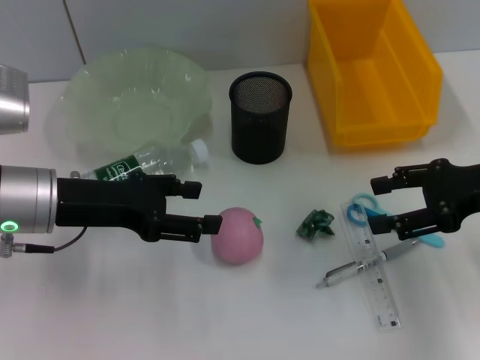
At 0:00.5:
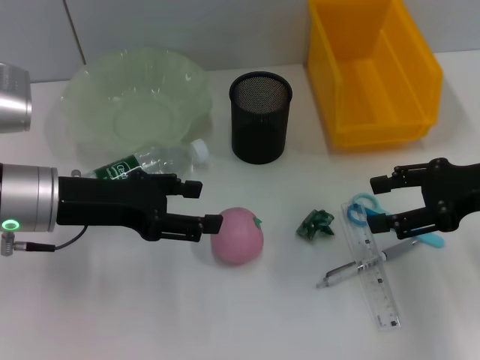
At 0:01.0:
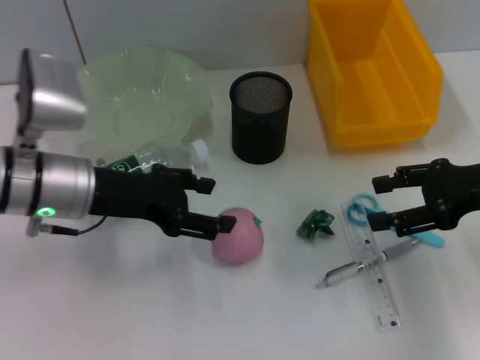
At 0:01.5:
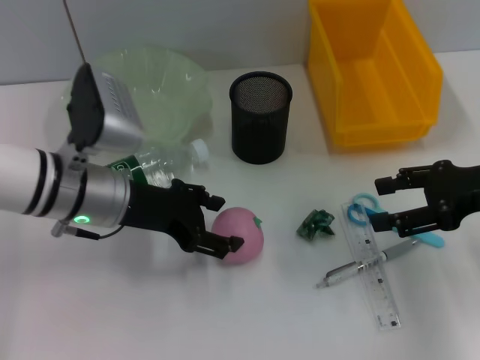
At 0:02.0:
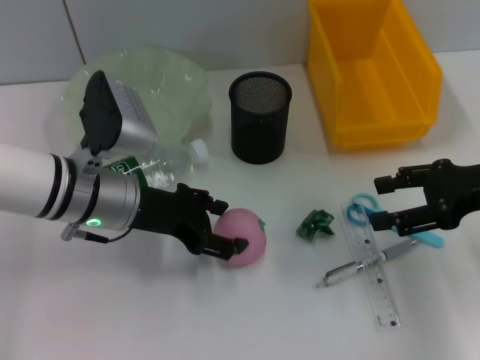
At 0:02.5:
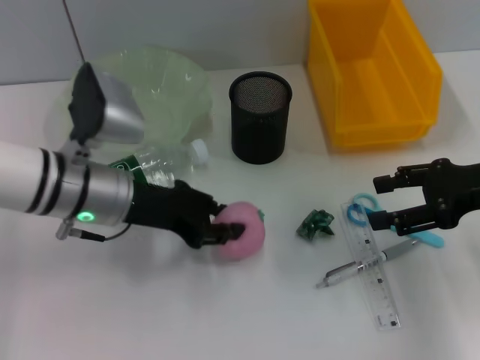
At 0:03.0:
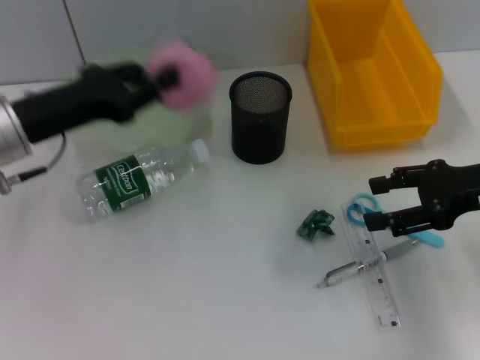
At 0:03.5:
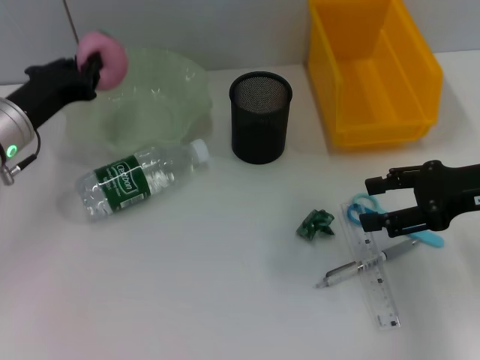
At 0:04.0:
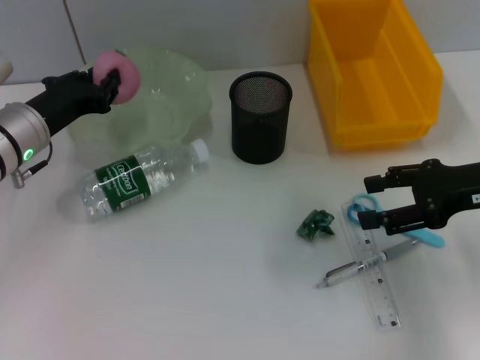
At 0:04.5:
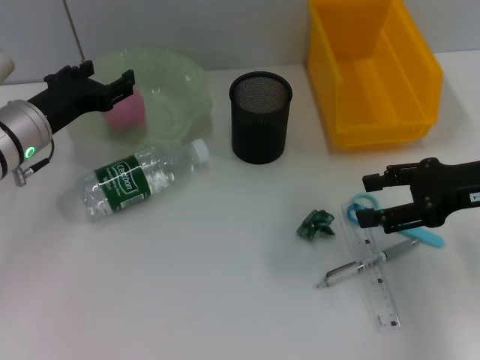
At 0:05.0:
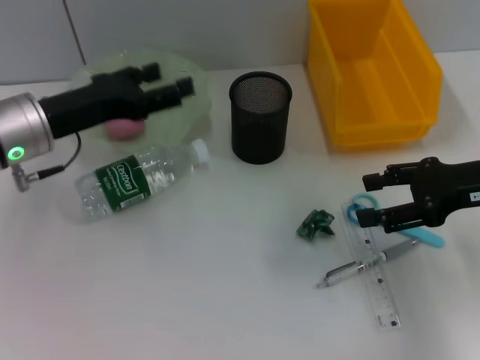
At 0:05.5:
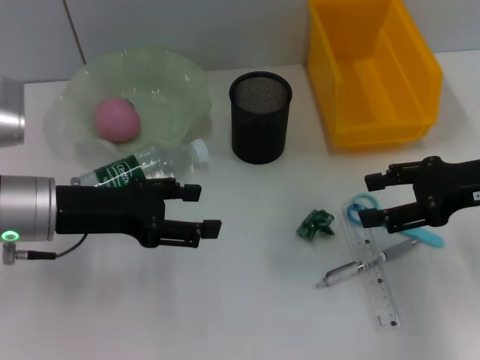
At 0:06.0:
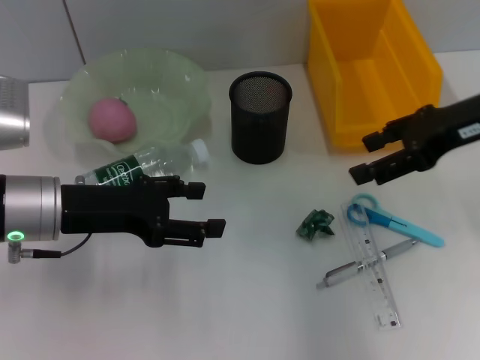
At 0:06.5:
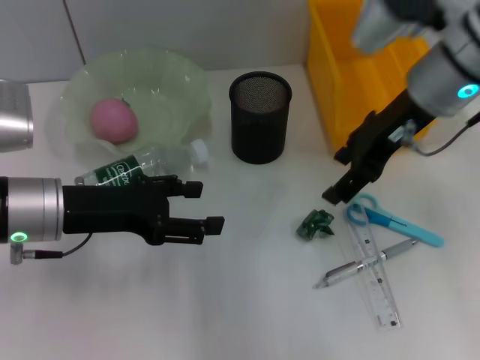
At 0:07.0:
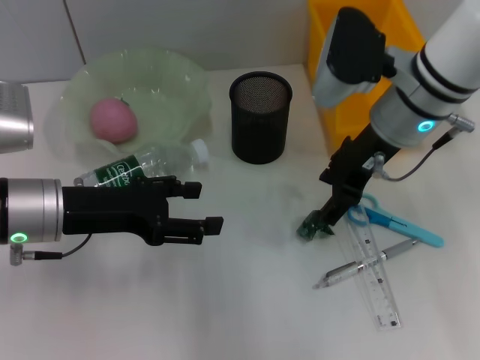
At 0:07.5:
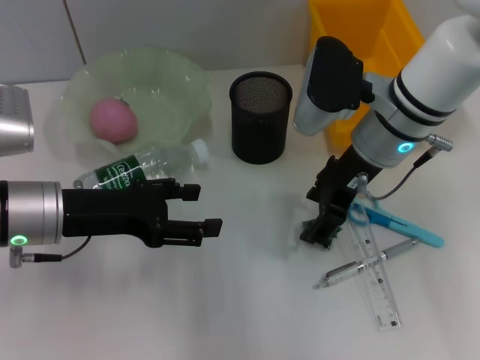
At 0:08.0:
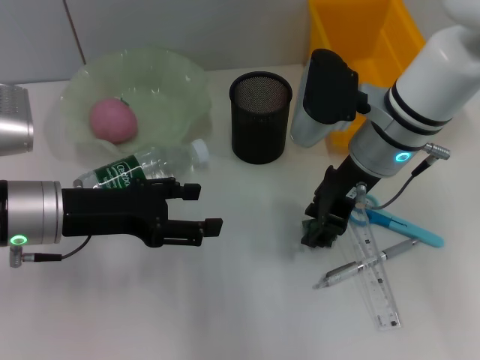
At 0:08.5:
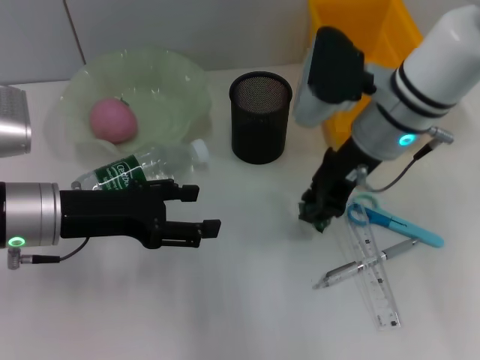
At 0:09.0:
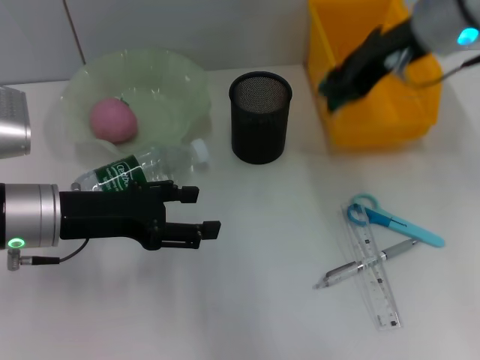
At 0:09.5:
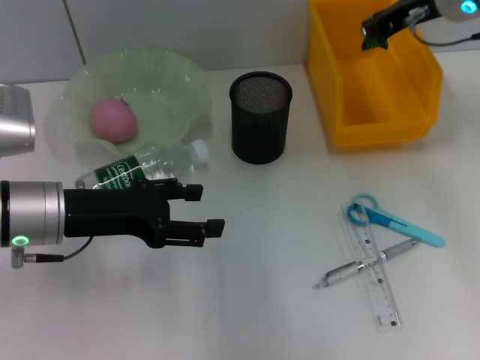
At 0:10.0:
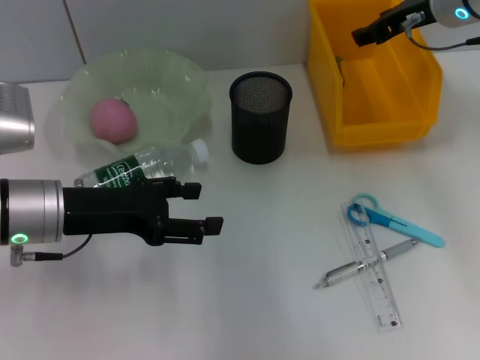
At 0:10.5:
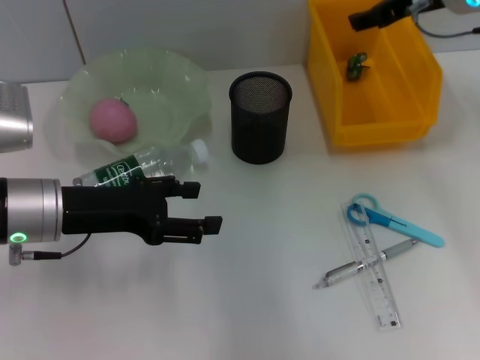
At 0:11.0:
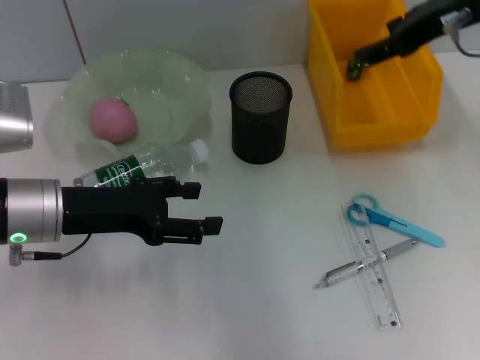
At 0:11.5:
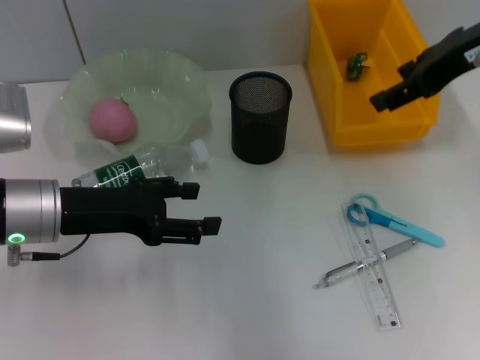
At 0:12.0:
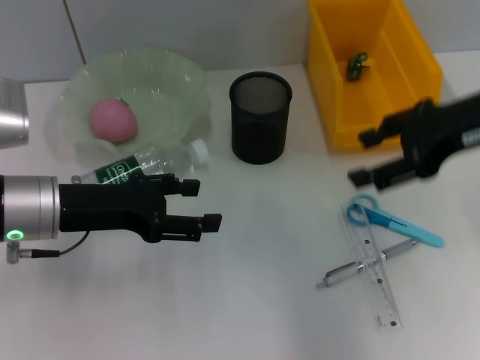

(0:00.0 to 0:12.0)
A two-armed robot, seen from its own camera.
Step, 0:00.0 - 0:02.0: Grab the peach with the left hand.
Step, 0:02.5 - 0:04.5: Place the peach into the fruit bowl with the left hand.
Step, 0:05.0 - 0:08.0: Grab the plastic with the right hand.
Step, 0:08.5 - 0:09.5: Place the plastic into the trash can with the right hand.
0:00.0 - 0:02.0: The left gripper shifts some 5 cm to the right.
0:02.0 - 0:04.0: The left gripper moves to the left, some 10 cm, and closes up.
0:04.0 - 0:06.0: The right gripper travels upward by approximately 10 cm, while the left gripper heads backward, covering some 5 cm, and opens up.
0:06.0 - 0:08.0: The right gripper travels to the left and downward by approximately 15 cm.
0:08.0 - 0:10.0: The right gripper shifts about 15 cm to the right, forward and upward, and closes.
0:10.0 - 0:12.0: The right gripper heads backward, covering approximately 15 cm, and opens up.

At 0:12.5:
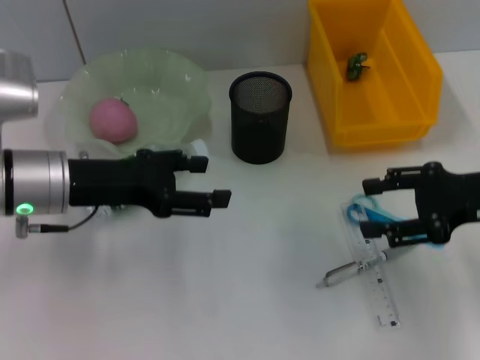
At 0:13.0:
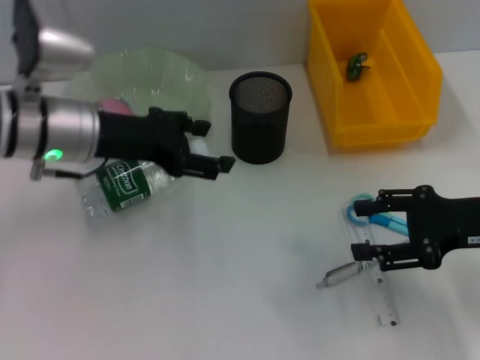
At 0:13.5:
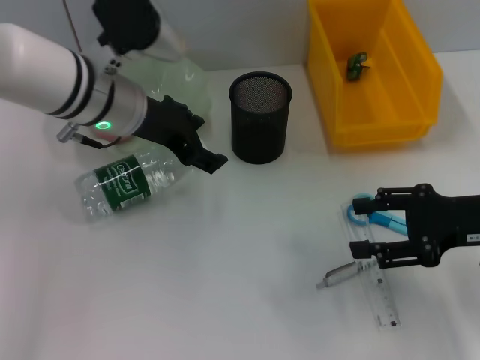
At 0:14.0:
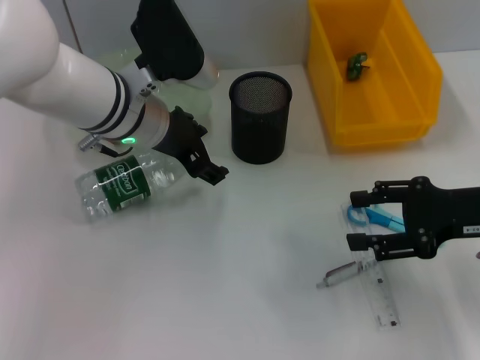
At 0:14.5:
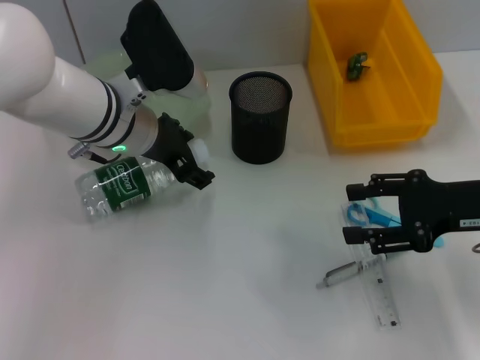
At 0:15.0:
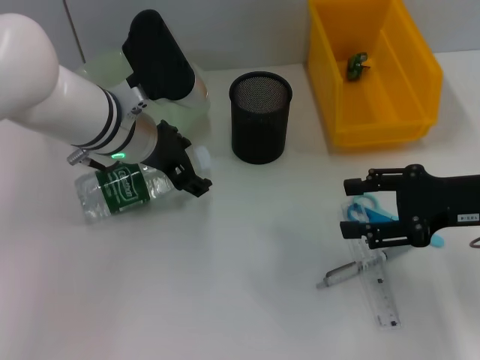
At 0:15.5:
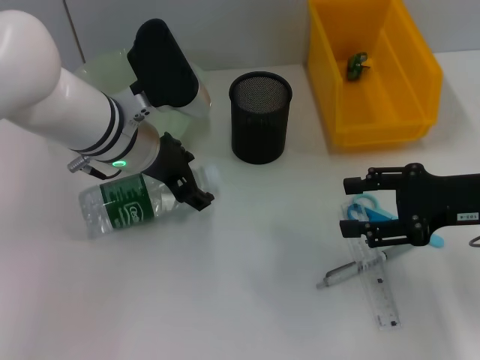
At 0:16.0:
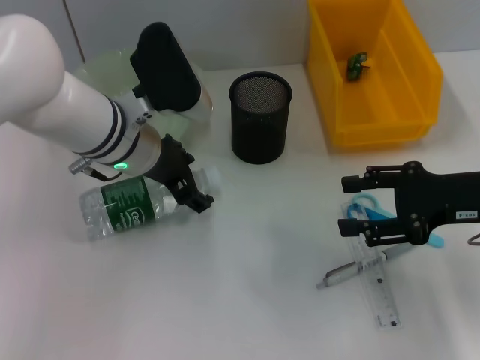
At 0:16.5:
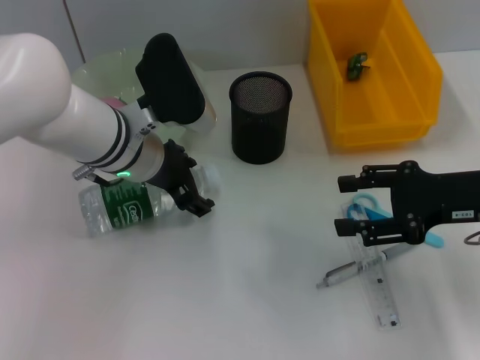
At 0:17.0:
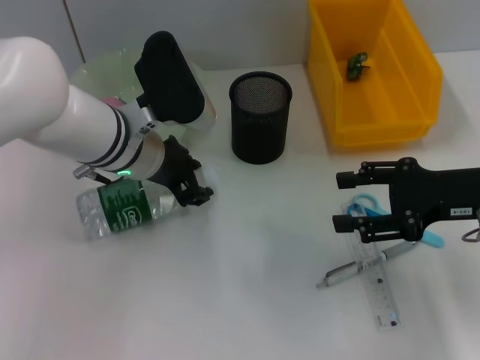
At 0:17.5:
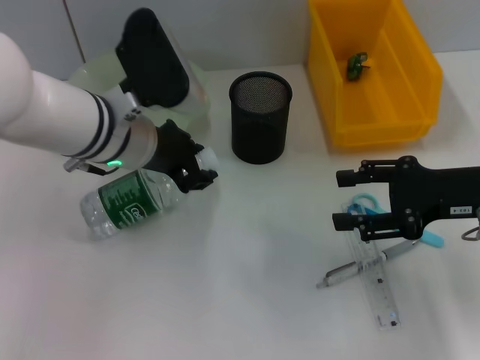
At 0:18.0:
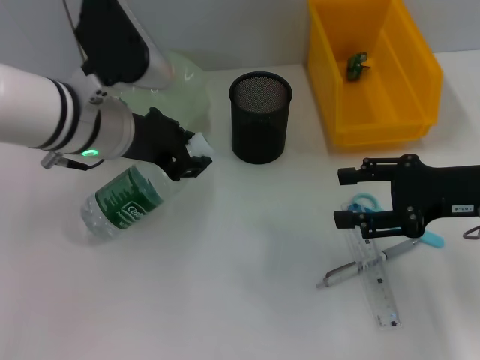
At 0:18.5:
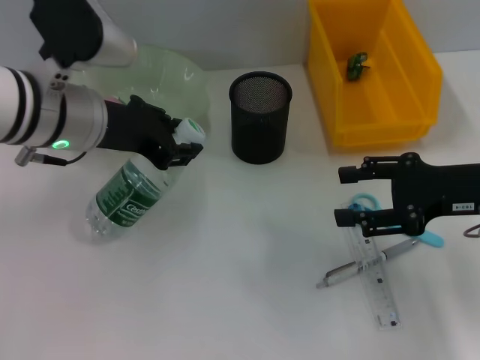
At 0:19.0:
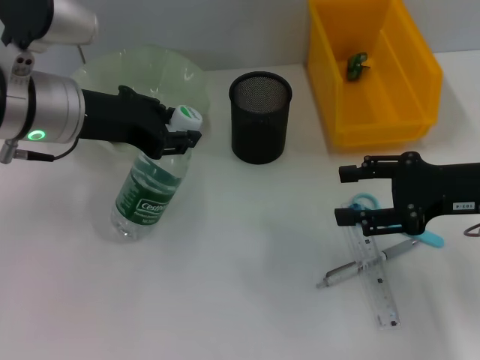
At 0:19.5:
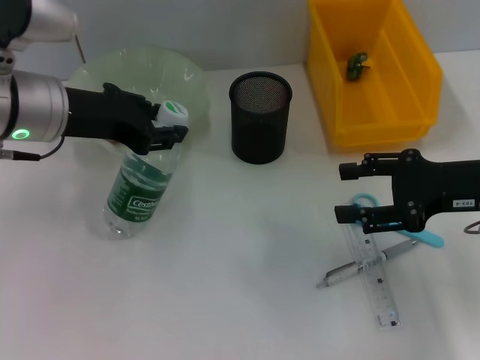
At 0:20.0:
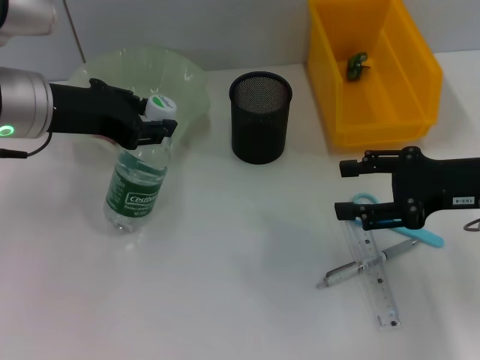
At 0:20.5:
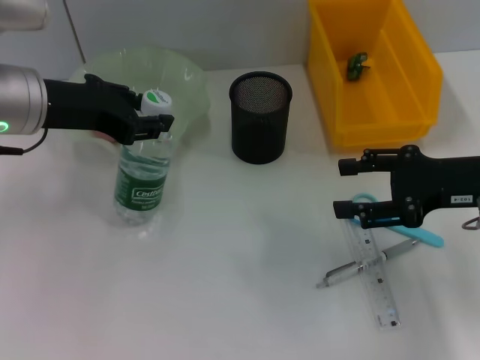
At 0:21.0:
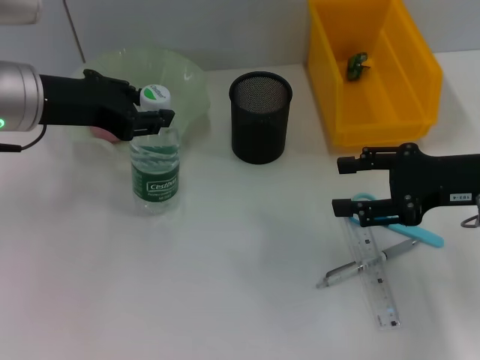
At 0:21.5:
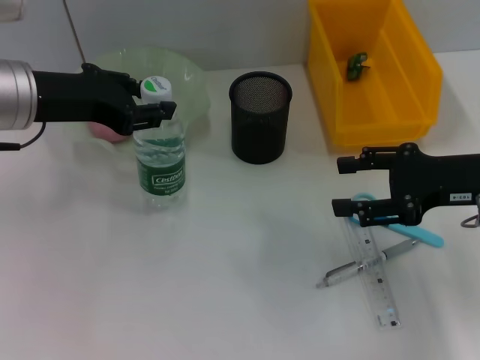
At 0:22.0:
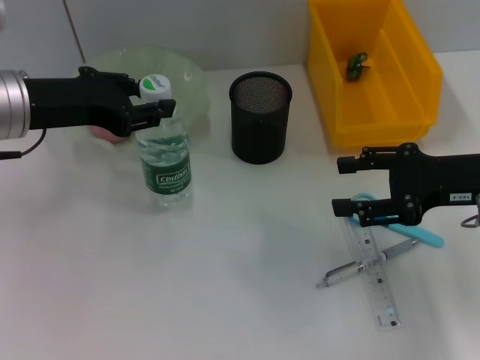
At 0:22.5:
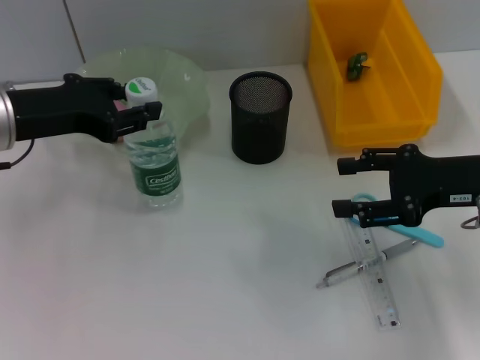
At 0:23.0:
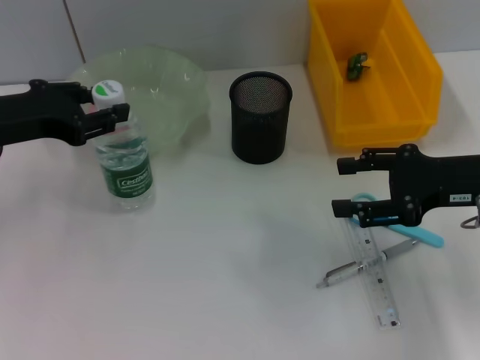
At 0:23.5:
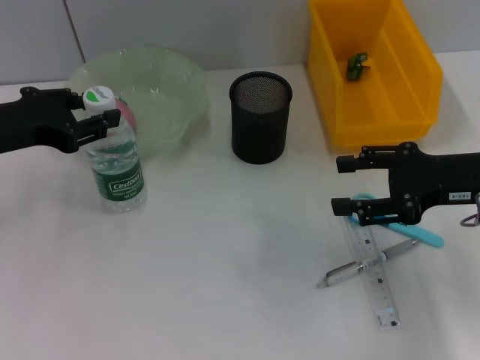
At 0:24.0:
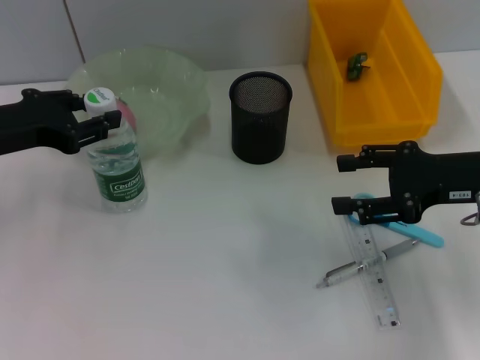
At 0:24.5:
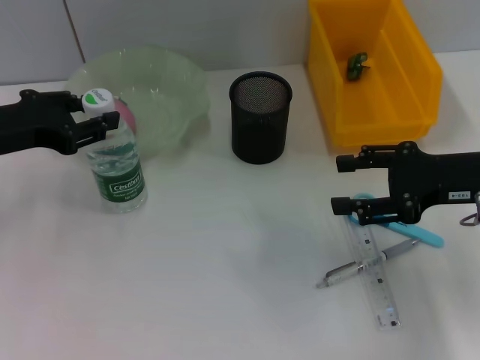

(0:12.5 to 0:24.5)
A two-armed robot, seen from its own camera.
Step, 0:12.5 - 0:17.0: Grab the water bottle with the left hand.
0:12.5 - 0:14.5: The left gripper heads to the right and forward, covering about 10 cm.
0:14.5 - 0:16.5: The grippers move only a little.
0:16.5 - 0:18.5: The left gripper shifts roughly 5 cm upward, and closes up.
0:18.5 - 0:20.5: The grippers make only small movements.
0:20.5 - 0:22.5: The grippers make only small movements.
0:22.5 - 0:24.5: The grippers move only a little.

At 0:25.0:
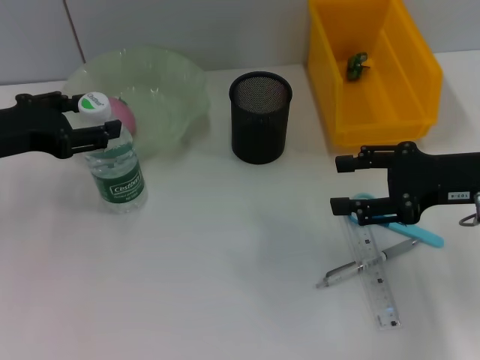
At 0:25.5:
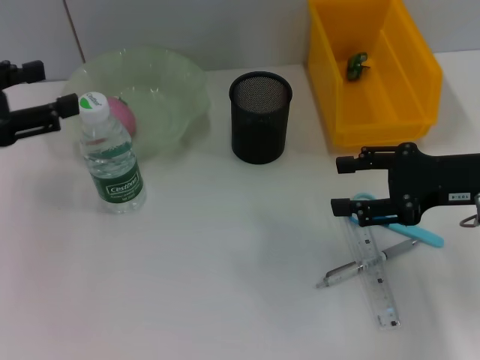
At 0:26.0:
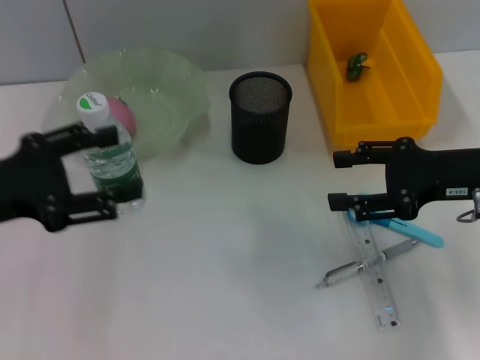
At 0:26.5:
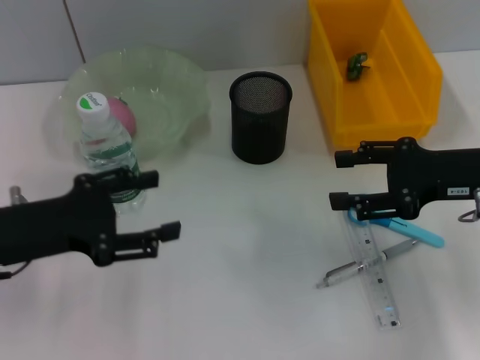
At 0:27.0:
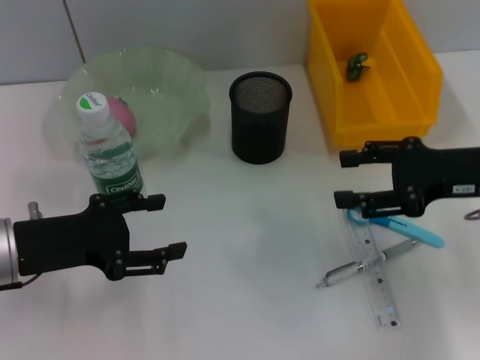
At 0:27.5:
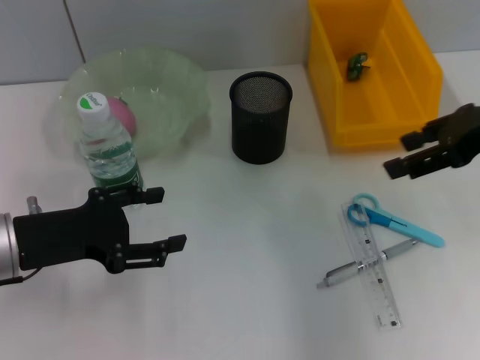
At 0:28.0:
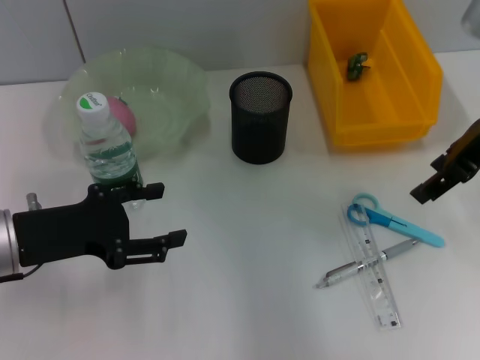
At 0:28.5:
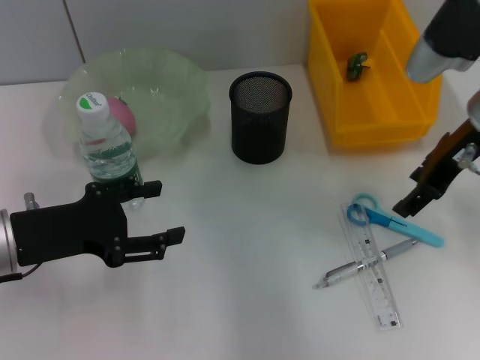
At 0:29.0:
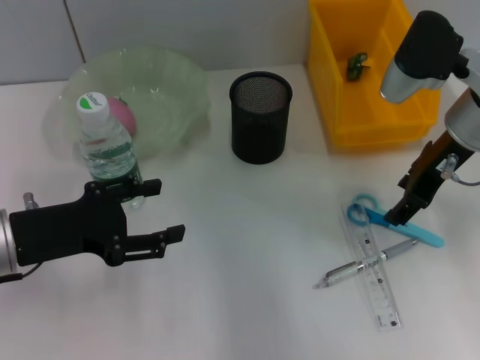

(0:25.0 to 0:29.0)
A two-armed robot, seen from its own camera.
0:25.0 - 0:27.0: The left gripper heads downward and backward, covering roughly 10 cm, and opens.
0:27.0 - 0:29.0: The right gripper goes about 10 cm forward and to the left.
